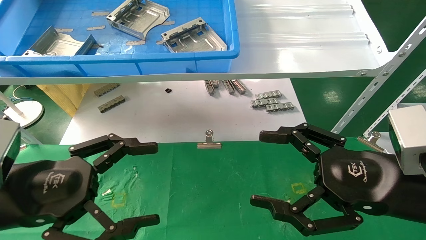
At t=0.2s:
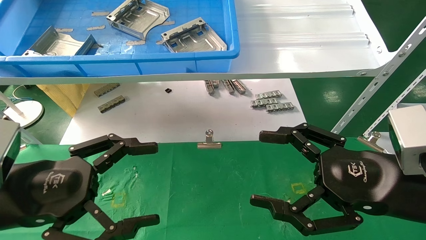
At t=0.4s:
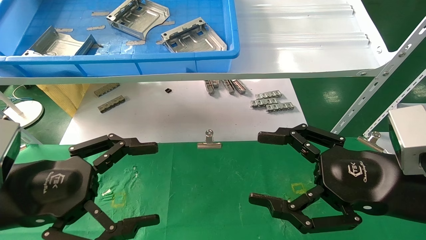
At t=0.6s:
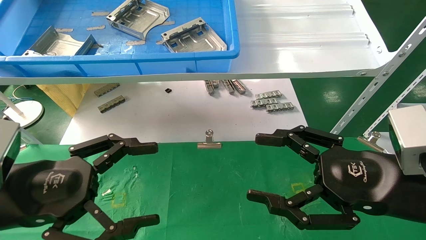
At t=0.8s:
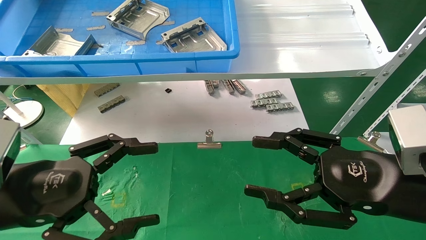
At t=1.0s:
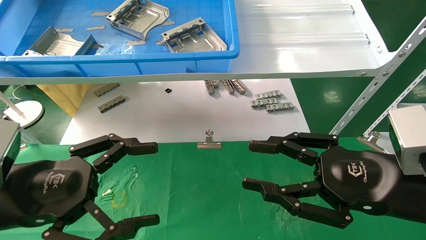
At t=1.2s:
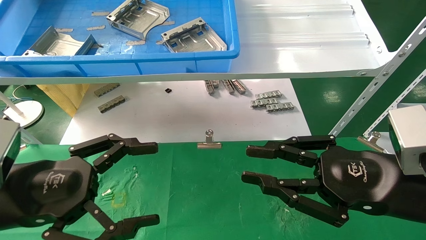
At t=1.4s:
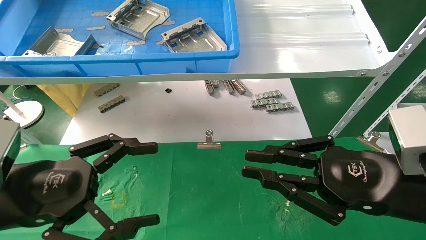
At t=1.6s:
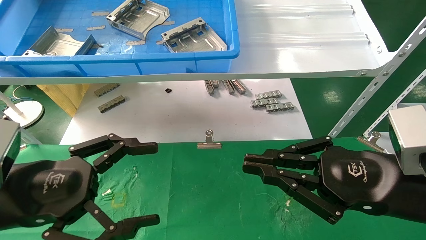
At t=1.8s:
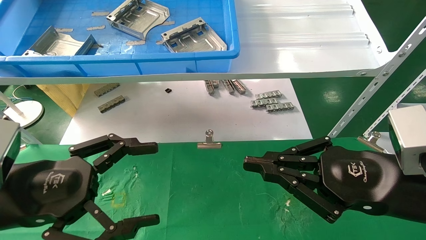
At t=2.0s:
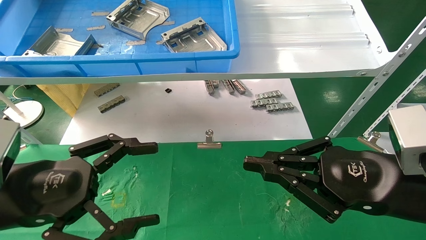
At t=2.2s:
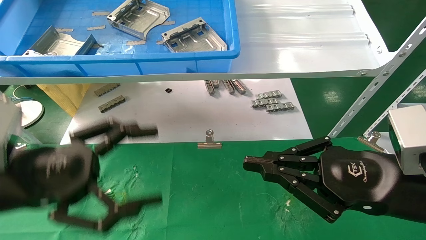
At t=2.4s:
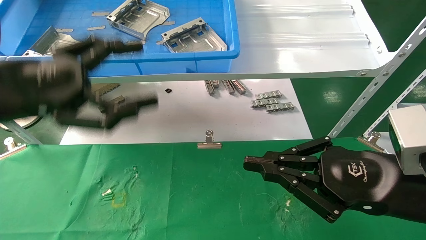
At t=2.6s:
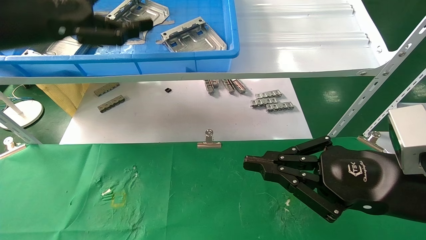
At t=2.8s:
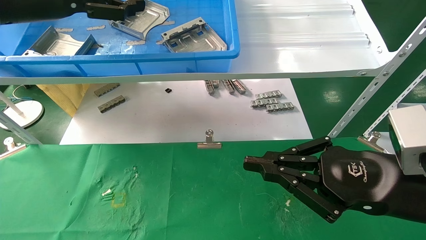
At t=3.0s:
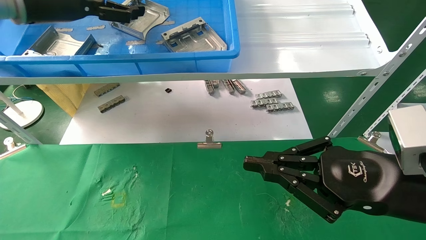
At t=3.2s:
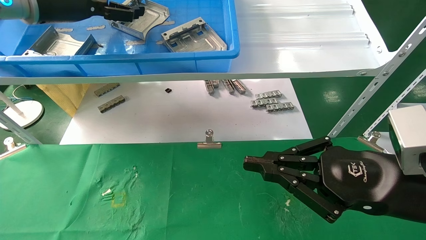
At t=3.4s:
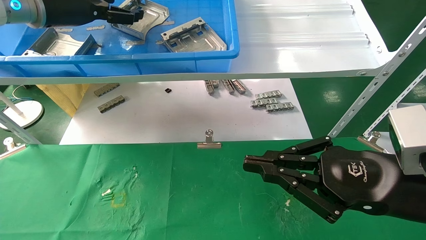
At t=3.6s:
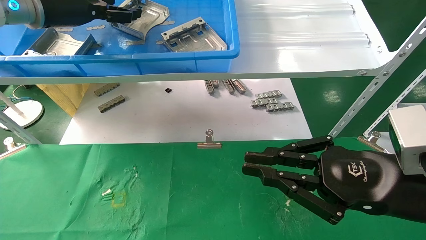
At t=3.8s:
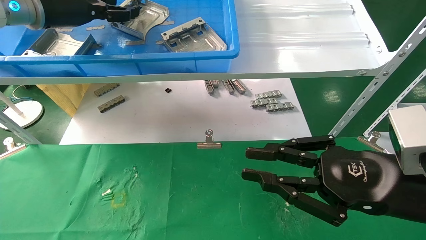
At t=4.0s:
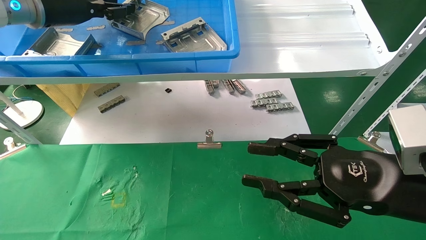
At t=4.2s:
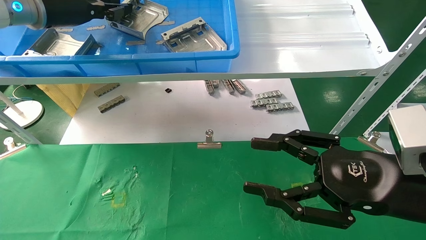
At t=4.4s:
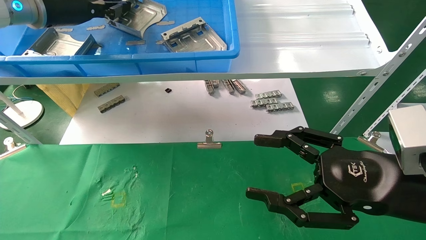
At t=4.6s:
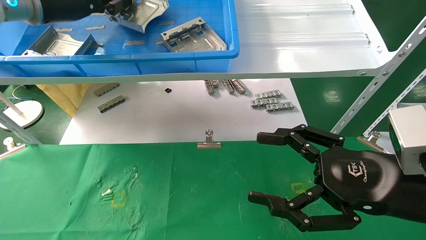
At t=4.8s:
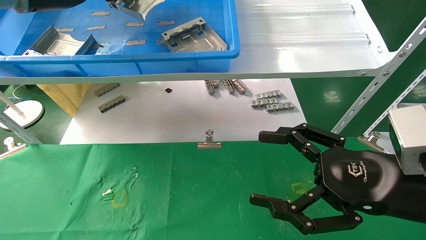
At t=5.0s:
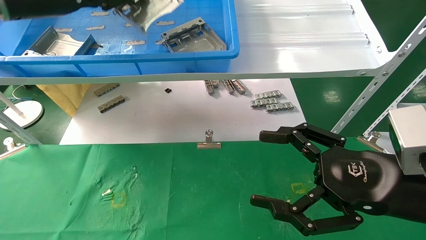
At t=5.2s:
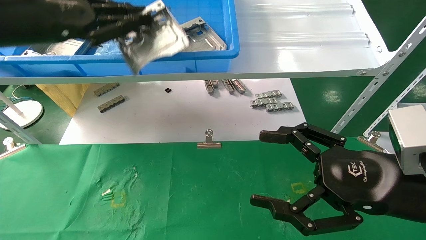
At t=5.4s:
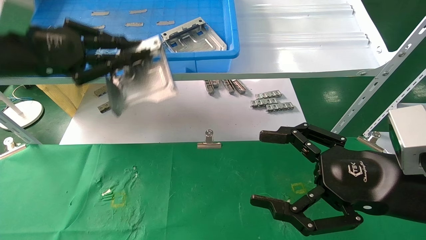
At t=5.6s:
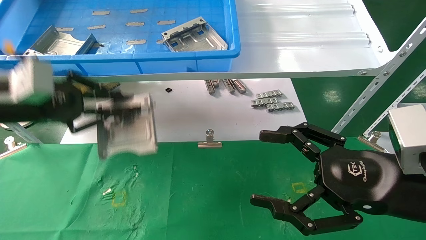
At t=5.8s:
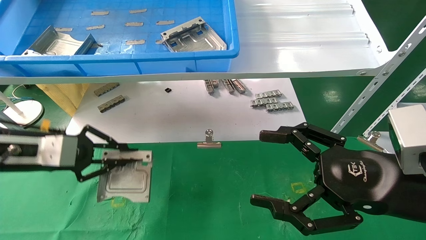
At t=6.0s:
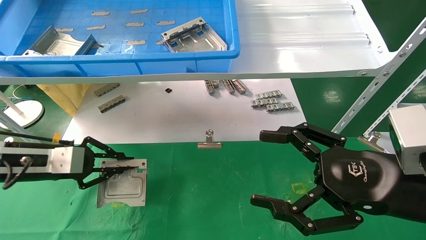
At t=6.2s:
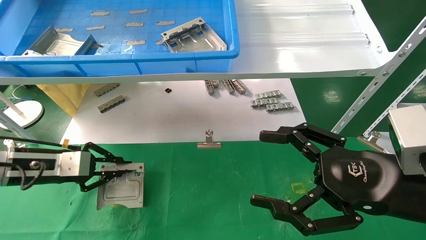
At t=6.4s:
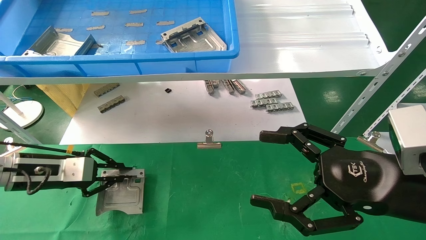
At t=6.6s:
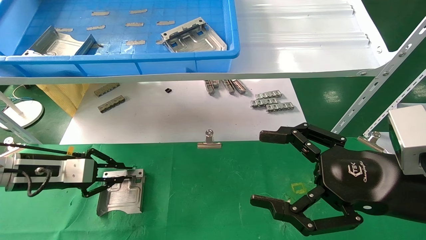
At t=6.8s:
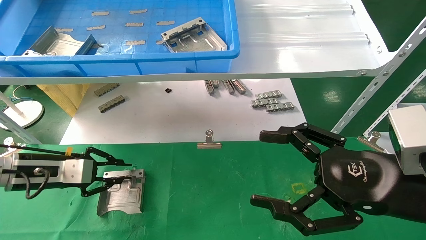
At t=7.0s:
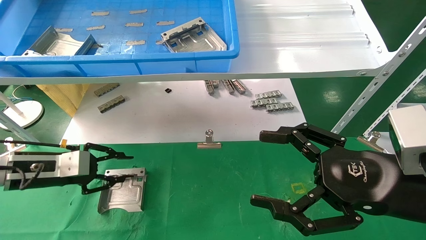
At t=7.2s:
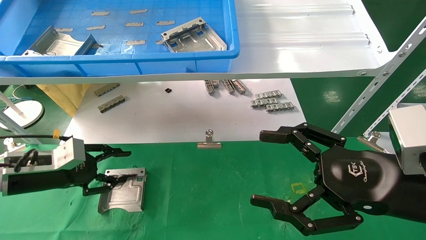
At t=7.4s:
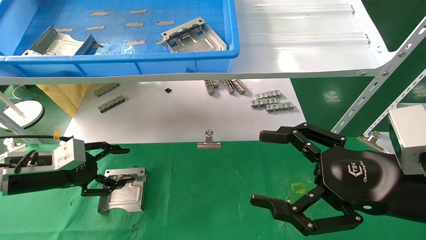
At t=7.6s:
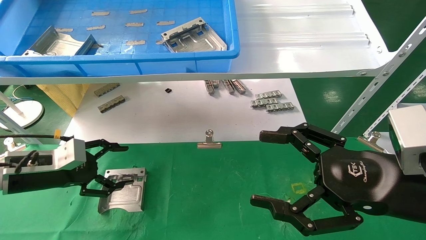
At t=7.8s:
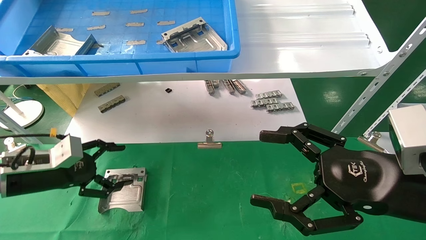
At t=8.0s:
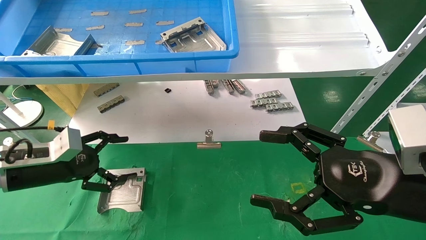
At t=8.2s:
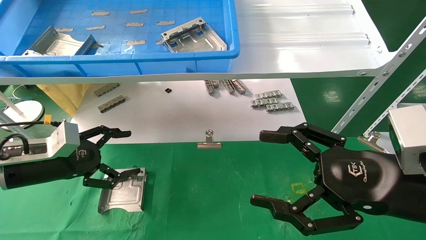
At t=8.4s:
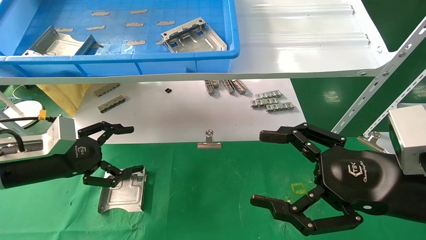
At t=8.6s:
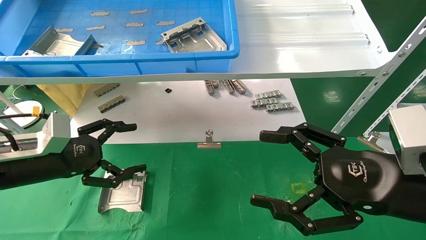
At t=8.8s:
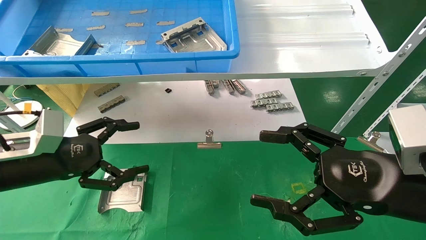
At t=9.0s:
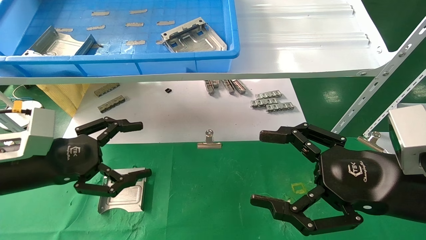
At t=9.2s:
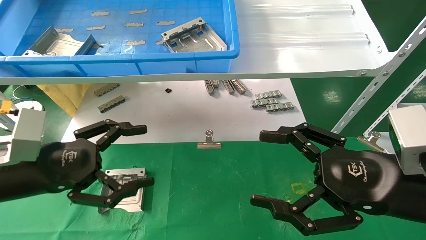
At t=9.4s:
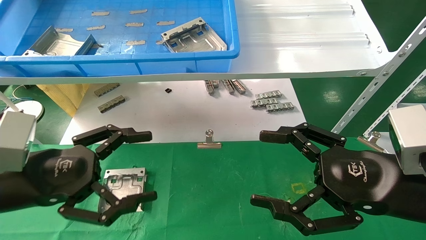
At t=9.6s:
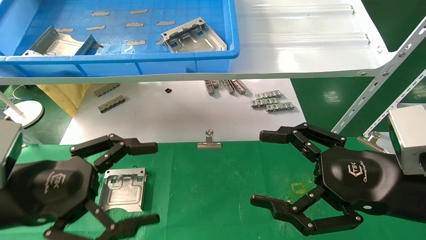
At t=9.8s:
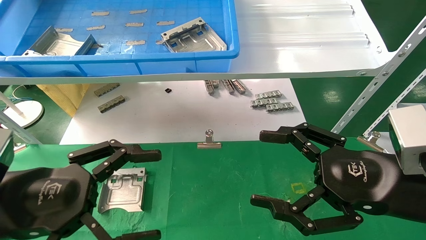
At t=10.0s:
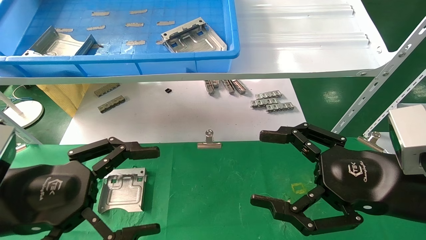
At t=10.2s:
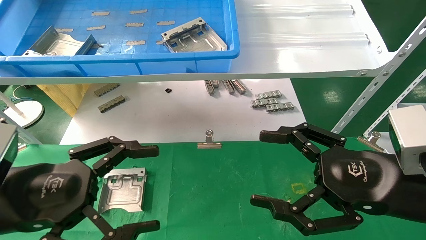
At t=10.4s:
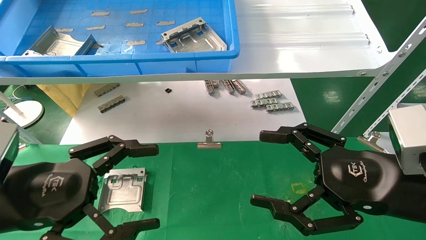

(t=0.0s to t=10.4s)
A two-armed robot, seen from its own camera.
Task of the whole recording: use the mechanical arm to pick up the parts and place them on the table.
Step, t=2.4s - t=4.4s: Pick up the hard drive bracket from the feeding area.
Step, t=4.6s - t=7.2s: Place the hard drive bracket into the box.
t=0.0s - t=1.4s: The right gripper closes its fingers.
t=1.4s - t=3.0s: The left gripper is displaced upward and forward by roughly 30 cm.
t=3.0s - t=4.4s: The left gripper closes. Meanwhile the right gripper opens up.
t=4.4s - t=6.0s: The left gripper shifts some 25 cm downward. The right gripper opens up.
t=6.0s - t=7.4s: The left gripper opens.
t=7.4s - t=9.0s: The left gripper shifts approximately 10 cm backward, to the right and upward, and opens its fingers.
t=9.0s - t=10.4s: The left gripper goes some 10 cm backward.
